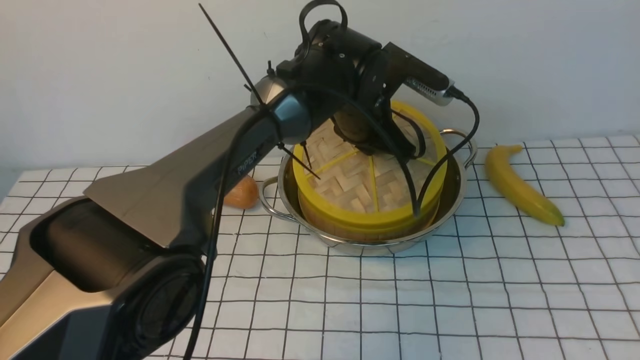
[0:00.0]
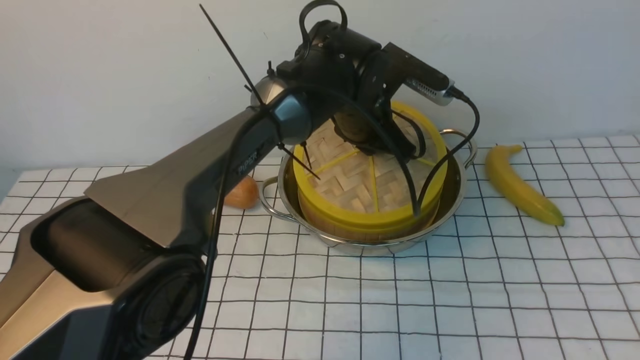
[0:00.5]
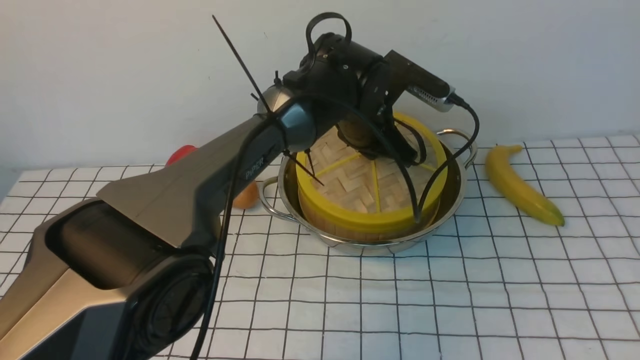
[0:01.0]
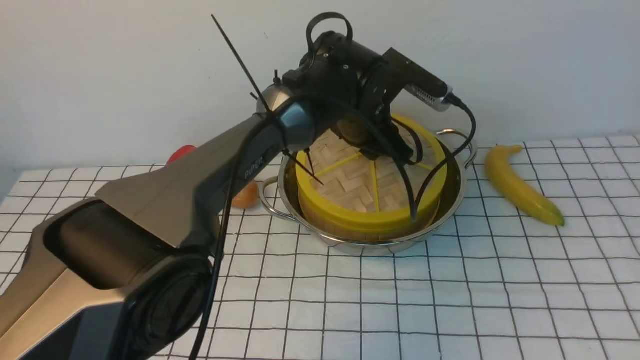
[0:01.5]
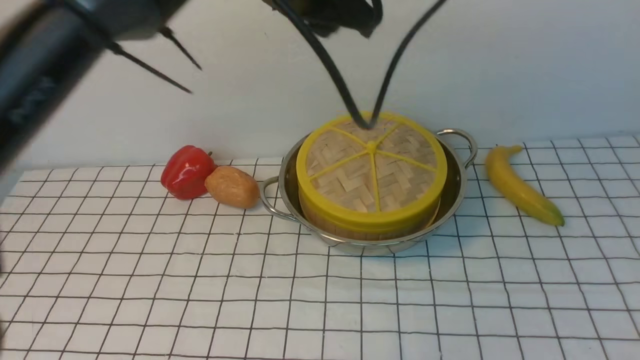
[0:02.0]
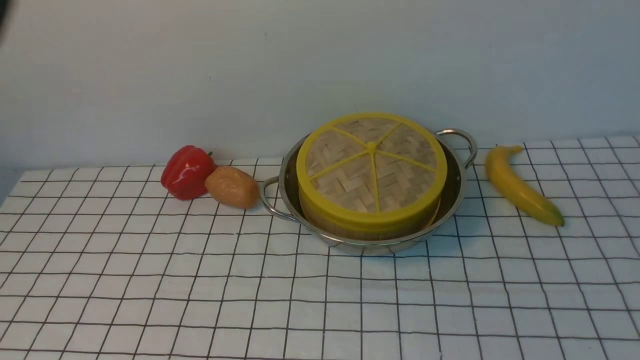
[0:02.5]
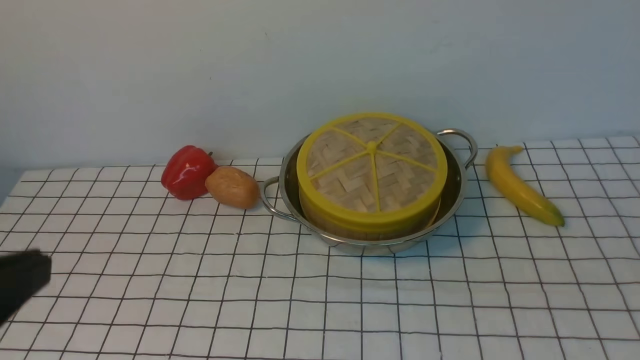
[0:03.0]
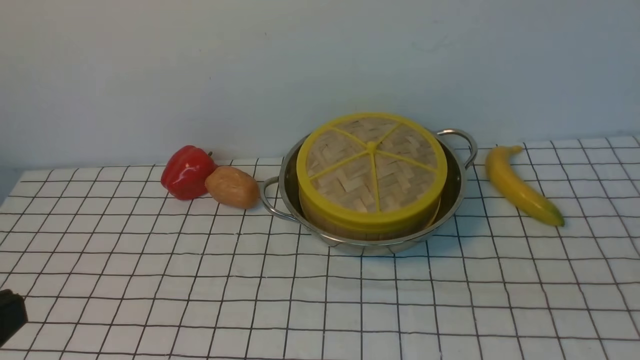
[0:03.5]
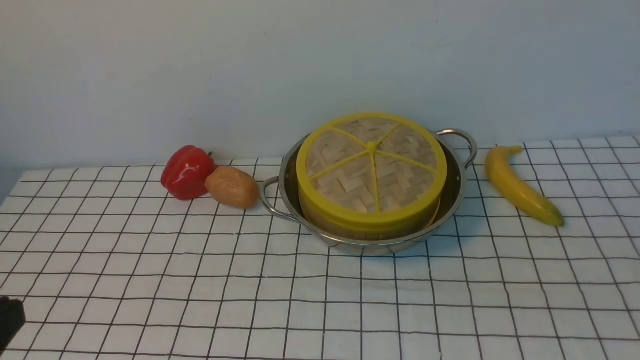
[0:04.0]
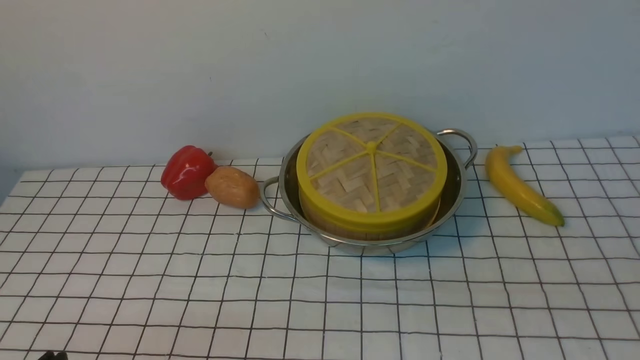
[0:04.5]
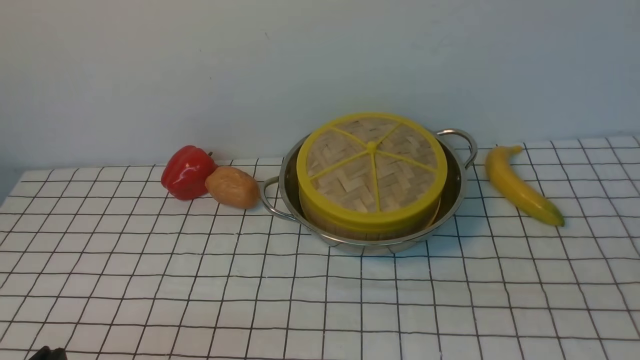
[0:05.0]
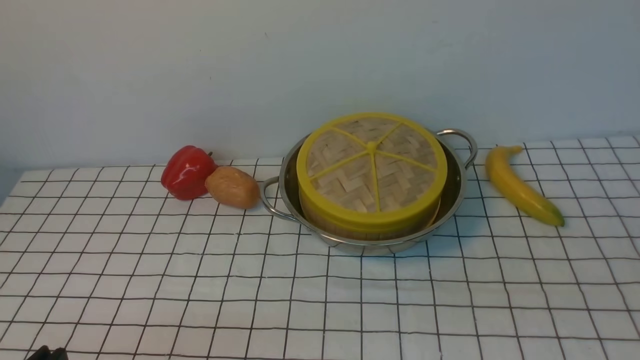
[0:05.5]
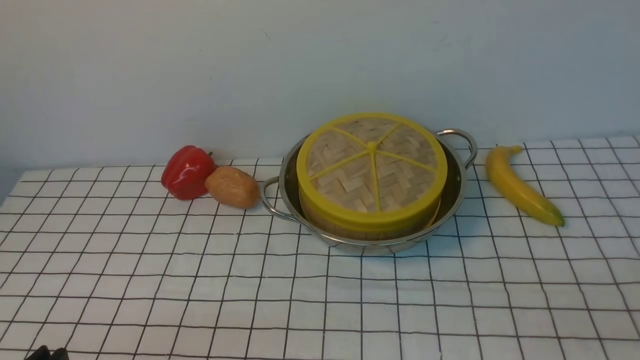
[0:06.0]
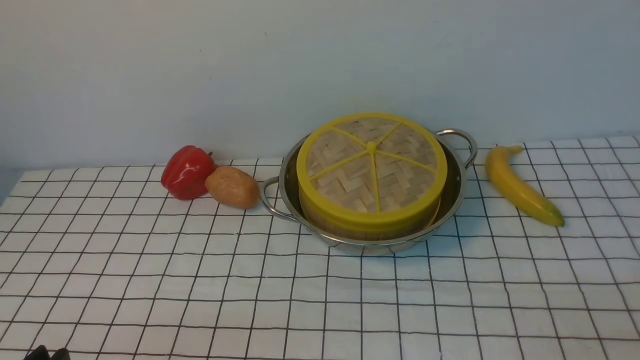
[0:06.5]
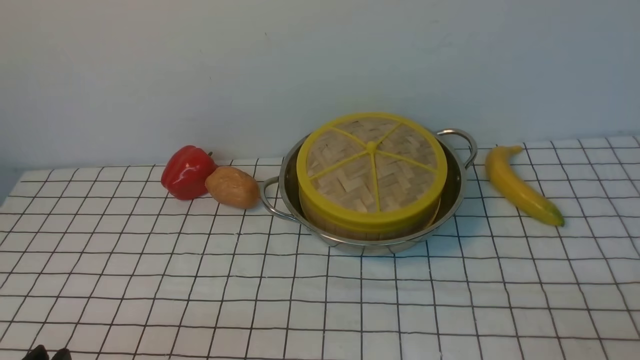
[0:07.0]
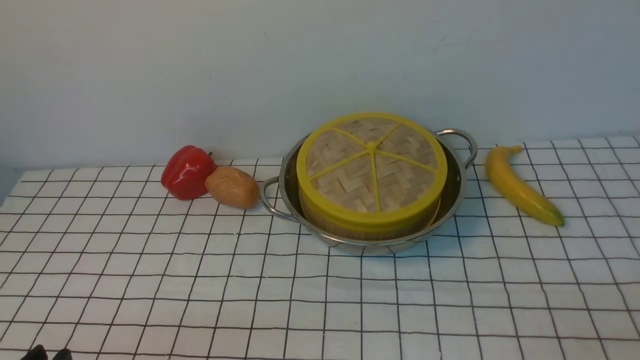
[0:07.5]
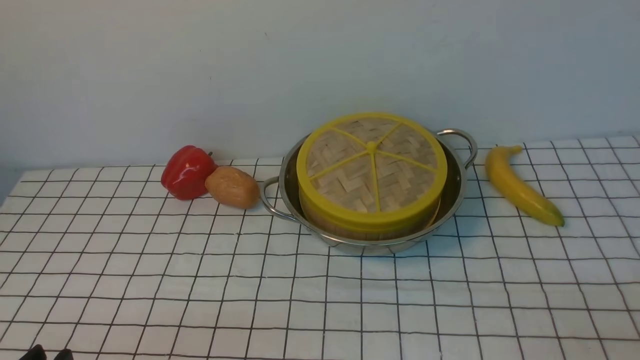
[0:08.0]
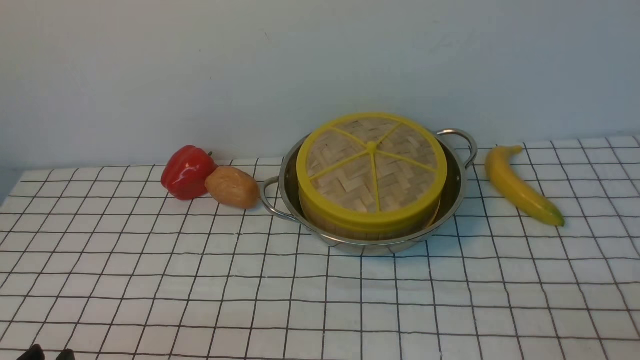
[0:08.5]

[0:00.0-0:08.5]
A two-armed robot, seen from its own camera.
Task of the whole recording: place the steamer in the pot on the white tablecloth, and put the lid on the steamer.
0:00.0 to 0:02.0: The left gripper travels upward and backward by approximately 20 cm, and opens up.
0:02.0 to 0:04.0: The left gripper is displaced backward, to the left and downward by about 40 cm, and closes its fingers. The right gripper is displaced downward and backward by roughly 20 cm, and closes.
0:04.0 to 0:06.5: The left gripper heads downward, covering some 10 cm, and opens its fingers.
0:06.5 to 0:08.5: Neither gripper changes place.
